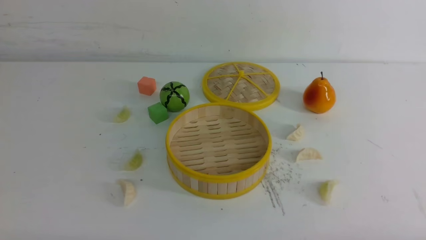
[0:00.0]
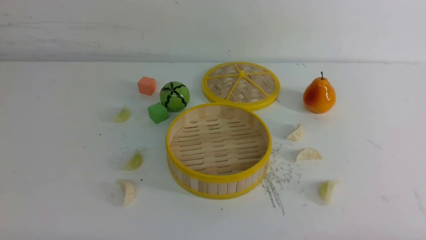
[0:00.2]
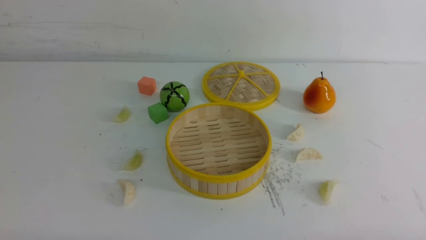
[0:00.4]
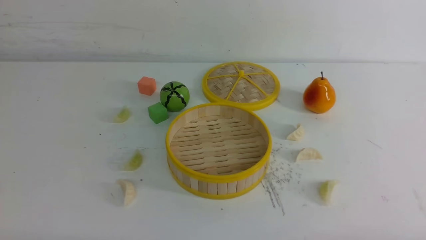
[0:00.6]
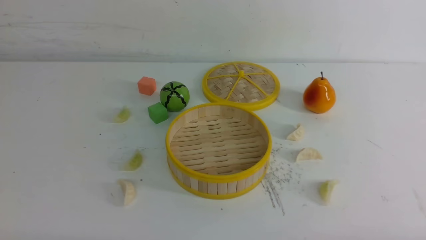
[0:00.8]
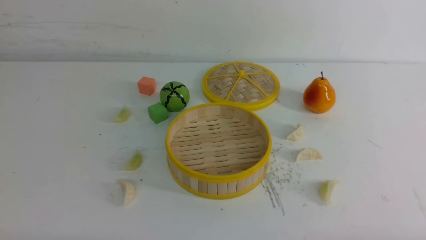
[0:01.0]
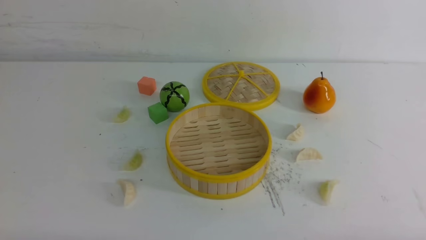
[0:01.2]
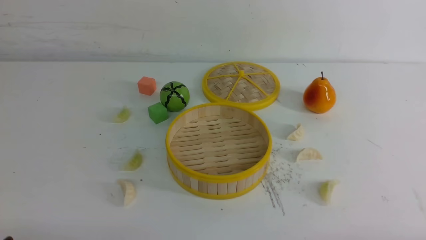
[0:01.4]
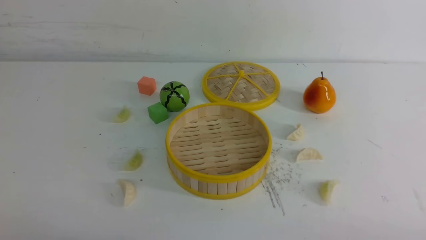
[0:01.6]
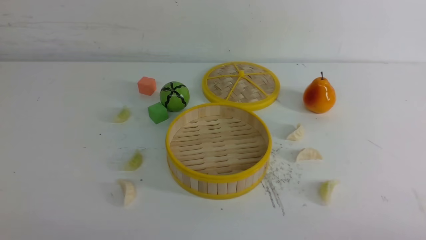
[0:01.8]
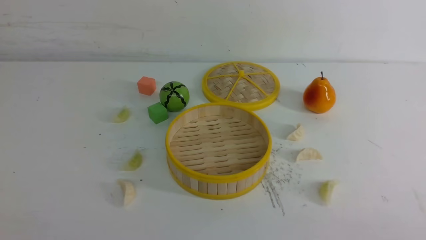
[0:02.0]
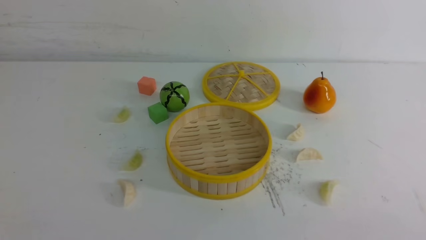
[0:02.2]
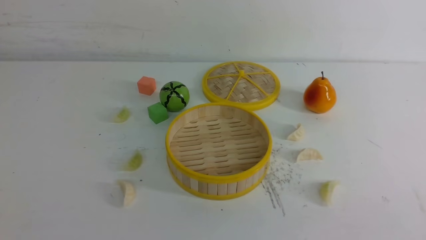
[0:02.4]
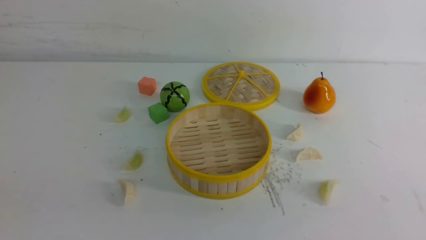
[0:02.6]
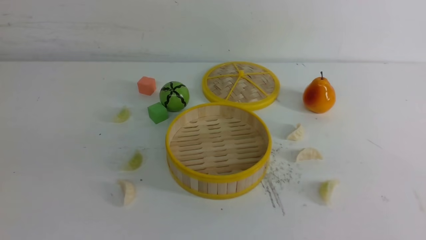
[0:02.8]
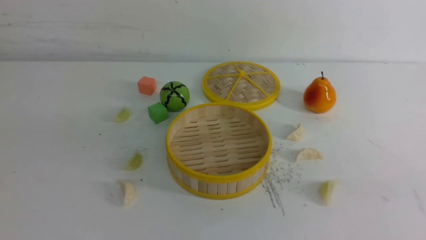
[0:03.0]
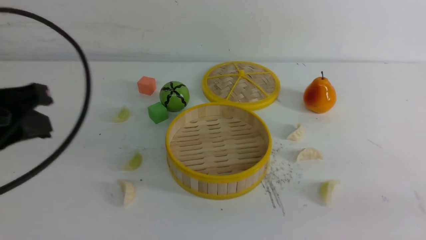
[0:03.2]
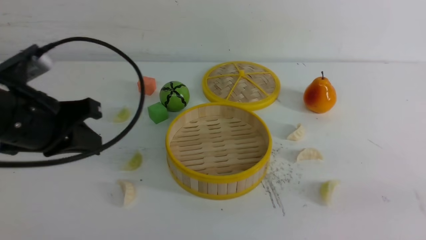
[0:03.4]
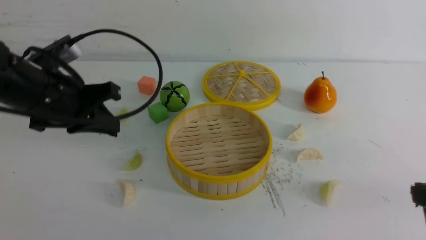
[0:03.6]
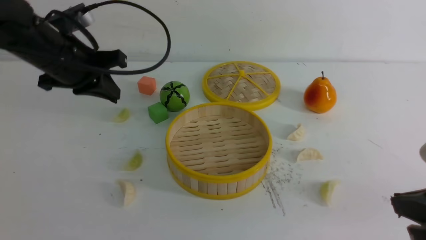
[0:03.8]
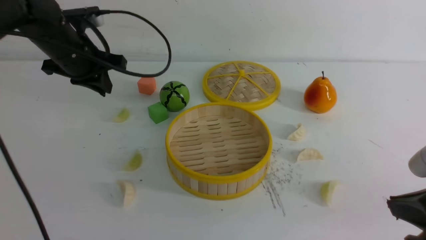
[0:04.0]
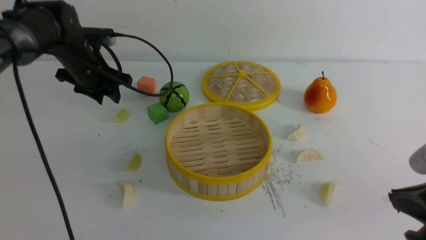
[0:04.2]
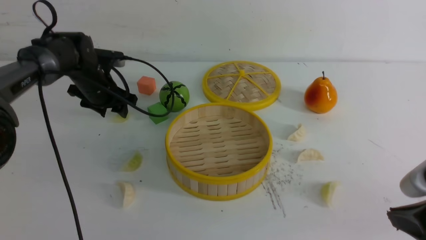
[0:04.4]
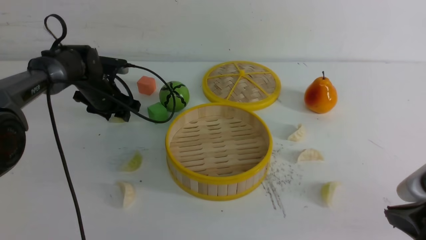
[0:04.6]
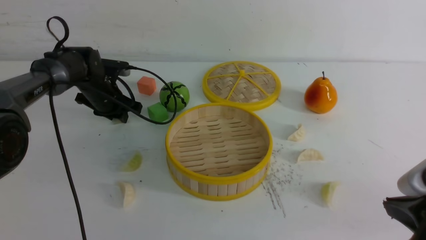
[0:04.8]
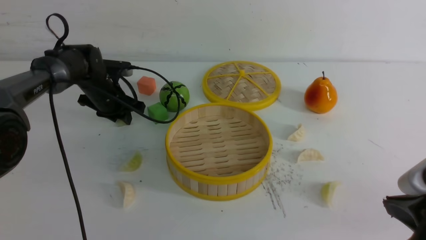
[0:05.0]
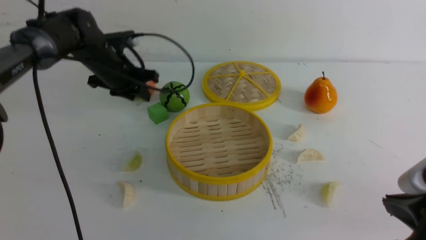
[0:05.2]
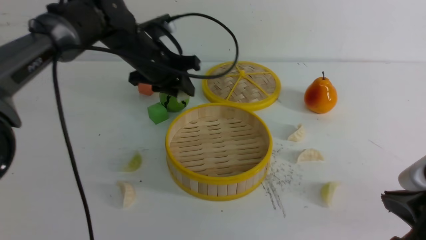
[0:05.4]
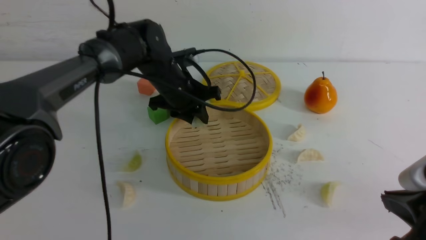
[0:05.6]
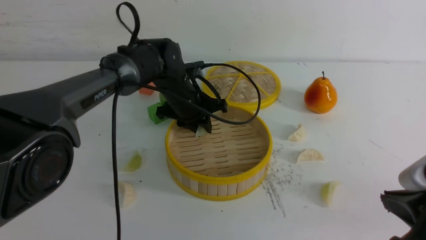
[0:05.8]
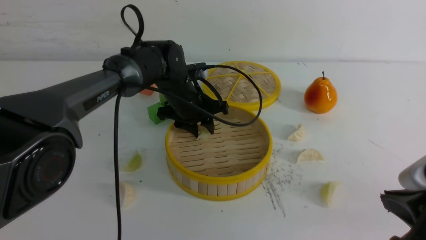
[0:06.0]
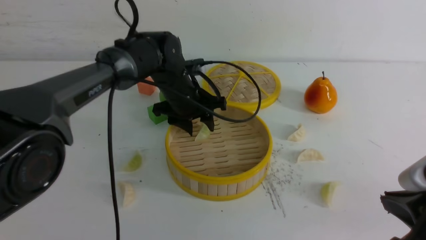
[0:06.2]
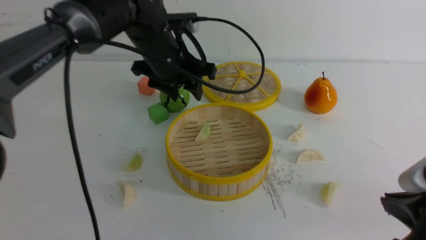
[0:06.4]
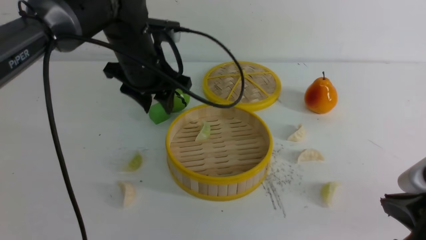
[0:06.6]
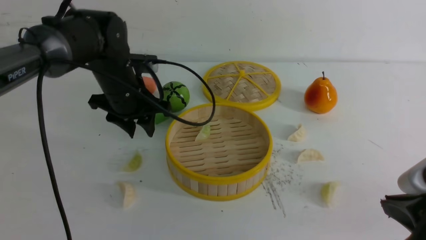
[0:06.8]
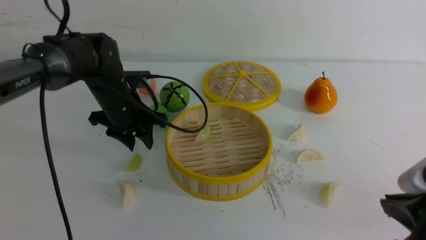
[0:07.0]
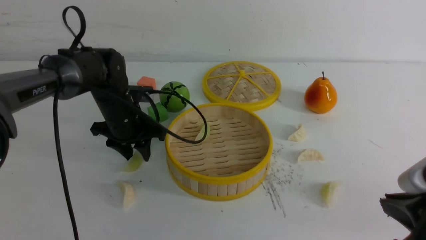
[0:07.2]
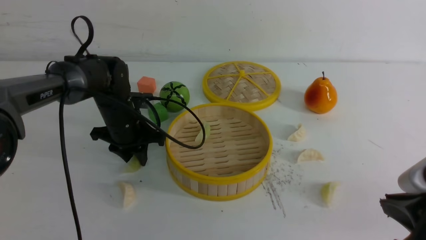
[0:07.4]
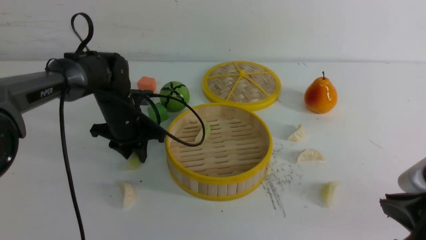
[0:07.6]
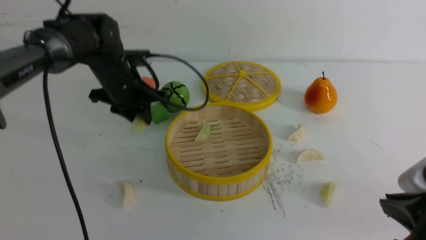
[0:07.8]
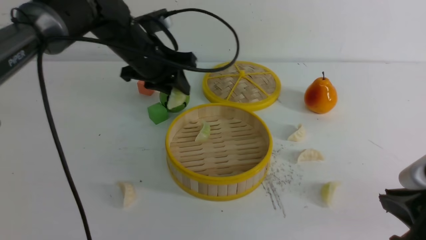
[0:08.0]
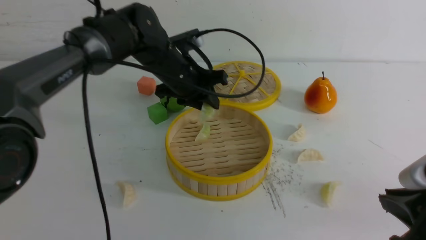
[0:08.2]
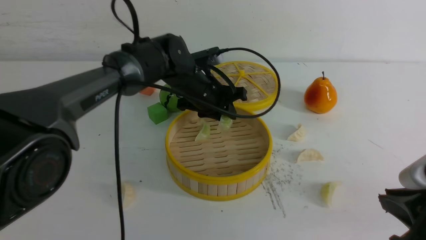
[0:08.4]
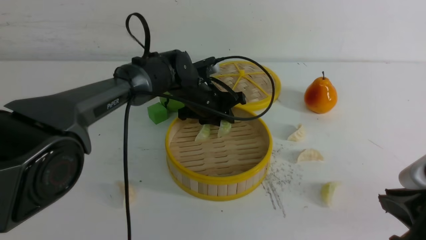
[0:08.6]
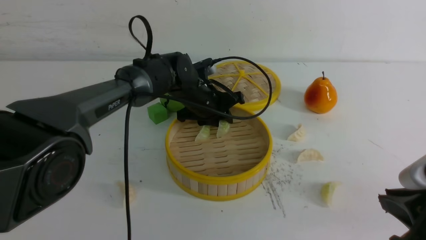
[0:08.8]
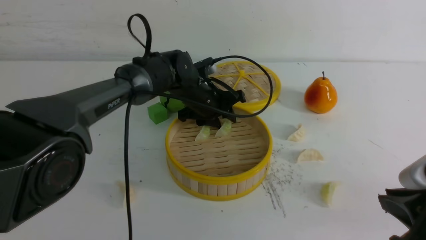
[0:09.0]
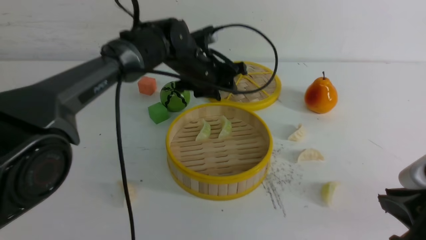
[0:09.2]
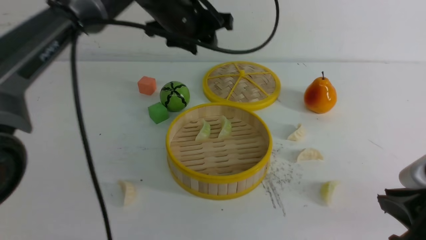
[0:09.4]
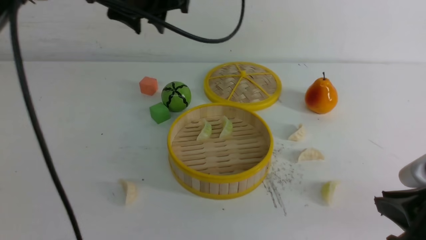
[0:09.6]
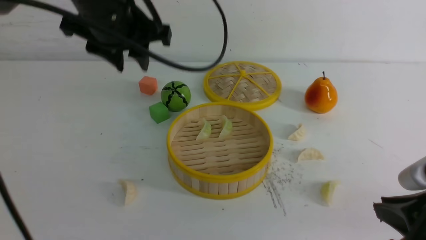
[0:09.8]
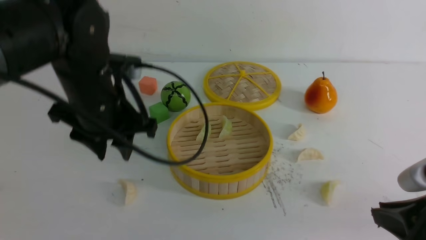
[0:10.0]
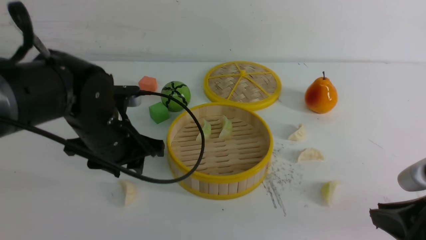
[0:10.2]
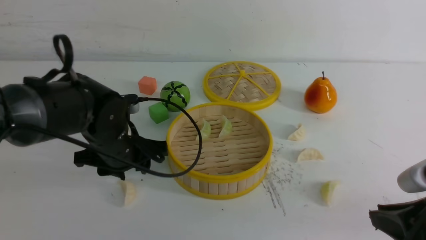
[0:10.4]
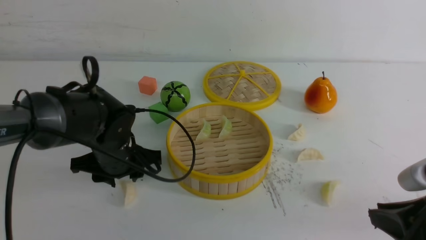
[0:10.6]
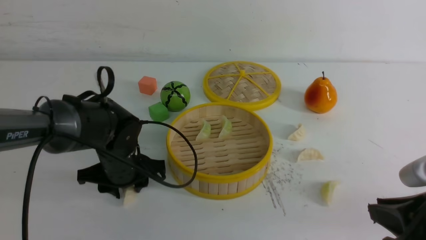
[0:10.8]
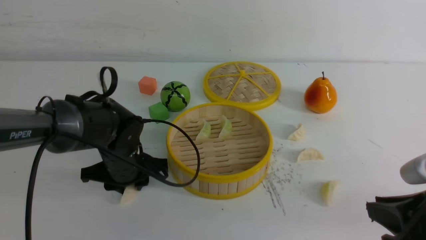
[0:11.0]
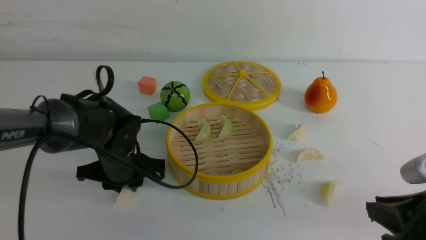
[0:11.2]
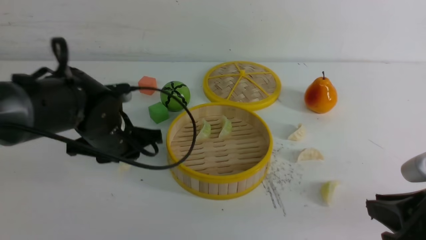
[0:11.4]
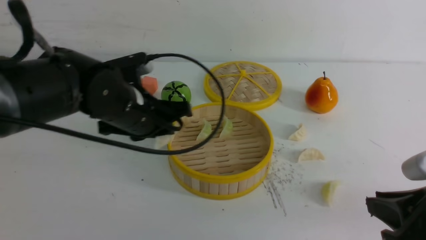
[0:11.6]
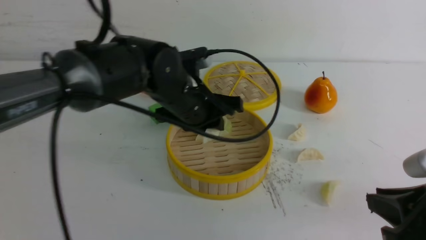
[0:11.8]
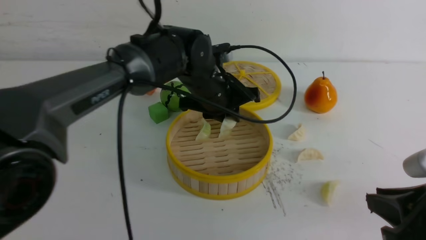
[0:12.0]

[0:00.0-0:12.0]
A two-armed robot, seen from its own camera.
Task of the whole recording: put the dumplings into the steamer on the white table.
Step, 0:00.0 to 0:05.0: use the left arm to grab a dumpling.
Step, 0:05.2 to 0:06.0: use the left arm to put the dumpling into the steamer.
Step, 0:06.4 to 0:07.6: use the left arm to grab a dumpling.
Step, 0:07.8 to 0:08.8: use the left arm to put the dumpling into the steamer.
Step, 0:09.2 to 0:11.2: use the left arm to grab a dumpling.
0:03.0 to 0:04.4: The right gripper shifts about 5 cm downward. The left gripper travels forward and downward by some 40 cm, and opens up.
0:04.4 to 0:06.0: The left gripper goes roughly 15 cm to the right, and closes, then opens again.
0:06.0 to 0:07.6: The left gripper is displaced to the left by some 10 cm, and reaches roughly 10 cm upward, then returns.
0:07.6 to 0:09.0: The left gripper goes approximately 15 cm to the right.
0:09.0 to 0:10.4: The left gripper travels backward and to the left by approximately 20 cm, and travels upward and back again, about 20 cm each way.
0:10.4 to 0:12.0: The left gripper is displaced to the right and forward by some 20 cm, and closes.

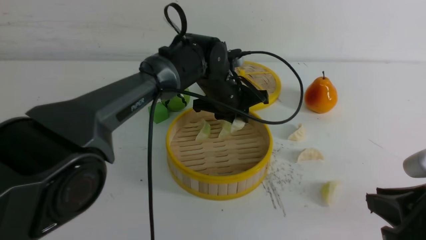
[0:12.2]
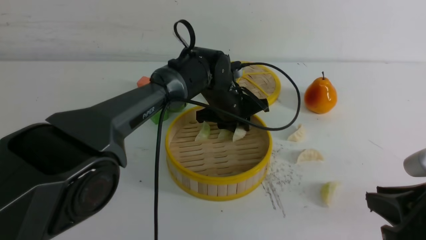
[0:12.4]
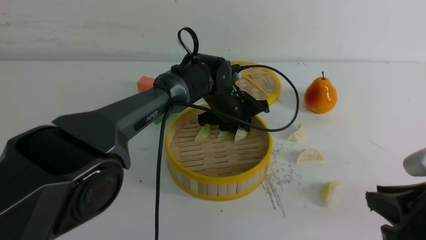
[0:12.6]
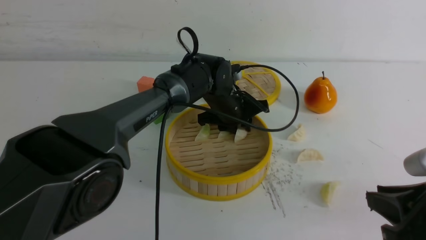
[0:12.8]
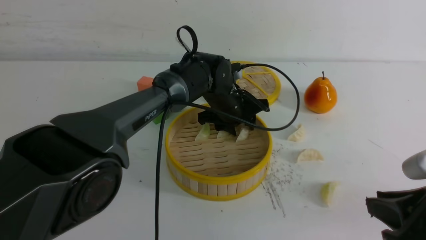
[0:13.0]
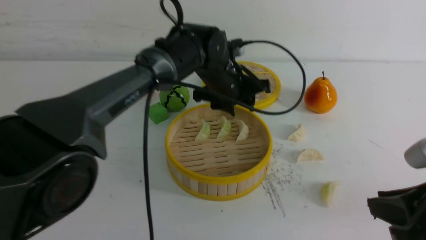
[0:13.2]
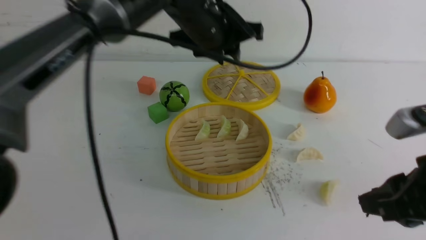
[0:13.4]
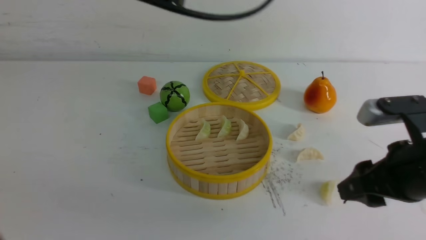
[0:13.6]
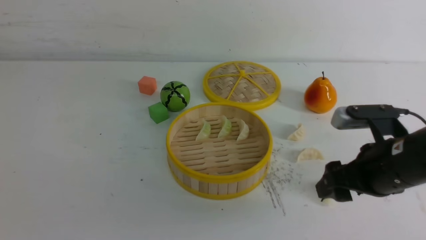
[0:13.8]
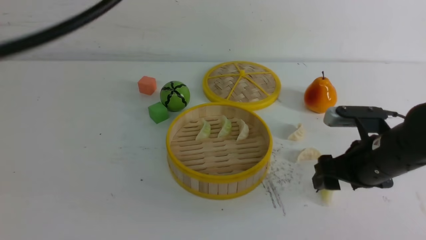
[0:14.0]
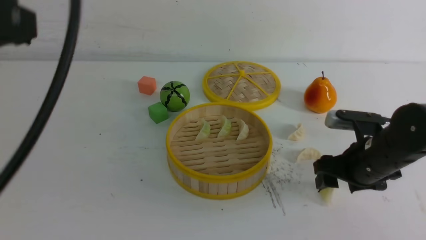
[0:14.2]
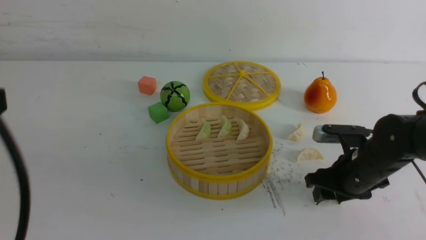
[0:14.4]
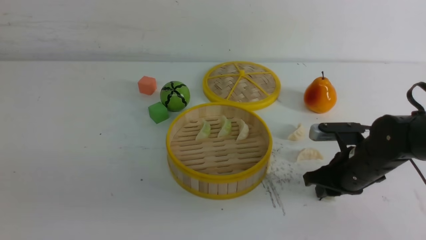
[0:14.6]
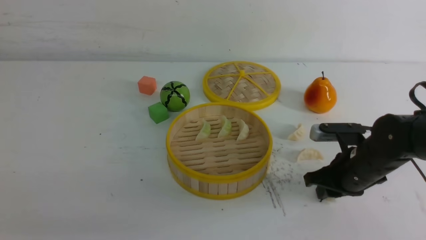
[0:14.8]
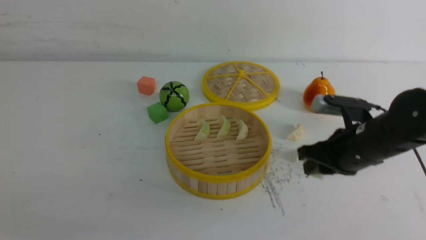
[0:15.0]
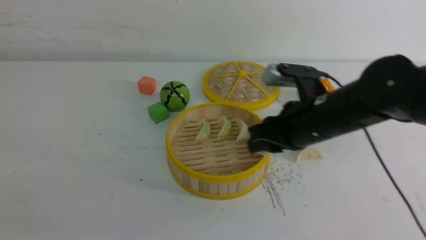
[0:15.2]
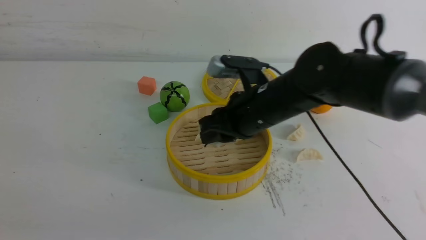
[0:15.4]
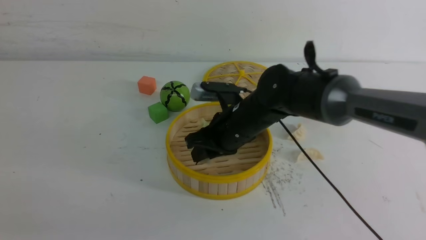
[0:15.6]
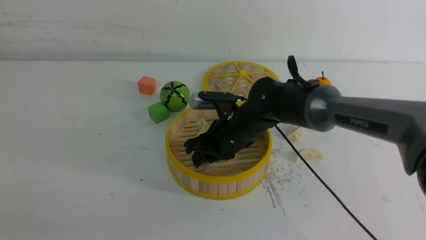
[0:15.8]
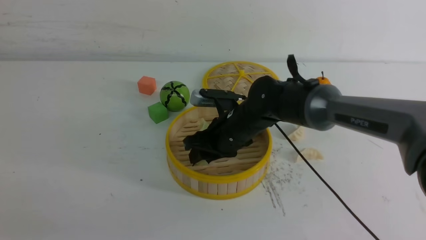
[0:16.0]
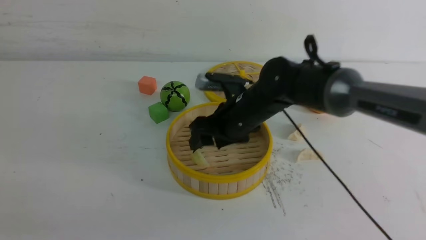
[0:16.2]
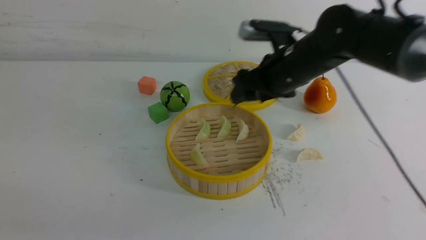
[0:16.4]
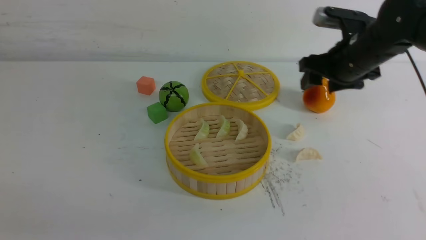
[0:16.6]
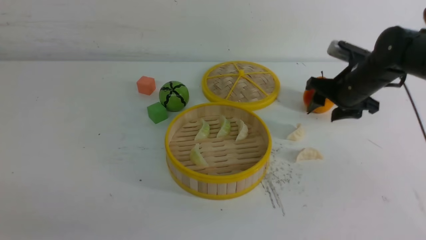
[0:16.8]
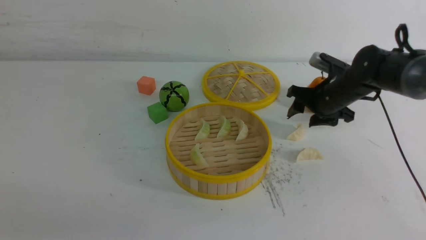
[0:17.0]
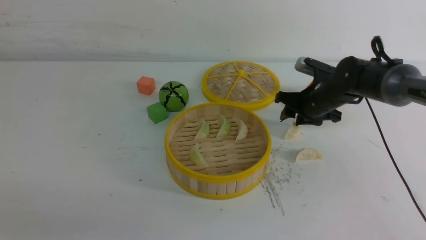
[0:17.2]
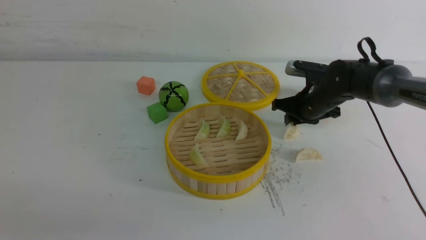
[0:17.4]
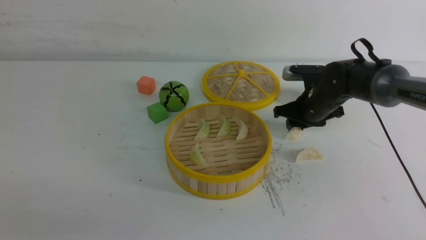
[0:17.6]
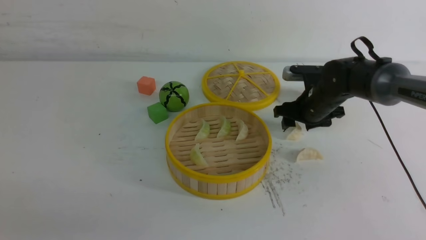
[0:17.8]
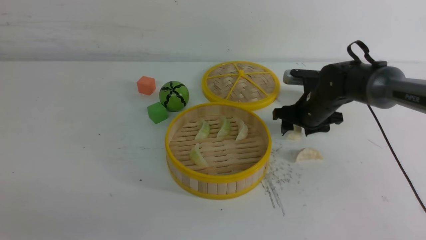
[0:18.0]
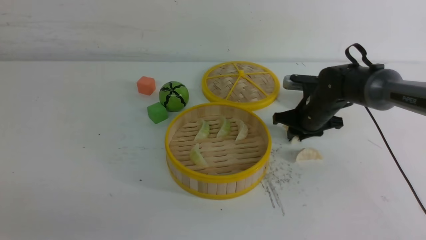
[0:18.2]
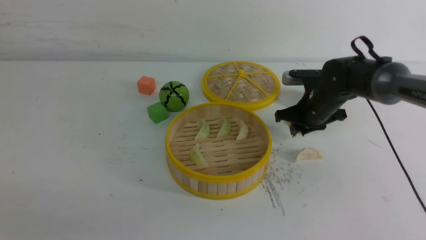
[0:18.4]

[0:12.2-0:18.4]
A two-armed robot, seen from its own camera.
Task of the whole recording: put the dumplings into the steamer on the white table.
Step, 0:13.2 to 0:14.8: use the right arm to grab a dumpling.
Step, 0:15.0 to 0:16.0: use the right arm to put the dumpling into the steamer.
Step, 0:16.2 to 0:18.2: use the right arm to grab a dumpling.
0:12.2 to 0:13.8: The left gripper is displaced upward, backward and to the left by about 40 cm, and closes its fingers. Meanwhile the right gripper moves forward, some 15 cm, and opens up.
0:13.8 to 0:15.4: The right gripper heads to the left and forward, covering some 20 cm, and closes up. The left gripper moves downward and backward, approximately 25 cm.
0:15.4 to 0:16.8: The right gripper travels to the right and forward by approximately 20 cm, and opens up.
0:16.8 to 0:18.4: The right gripper closes its fingers.
